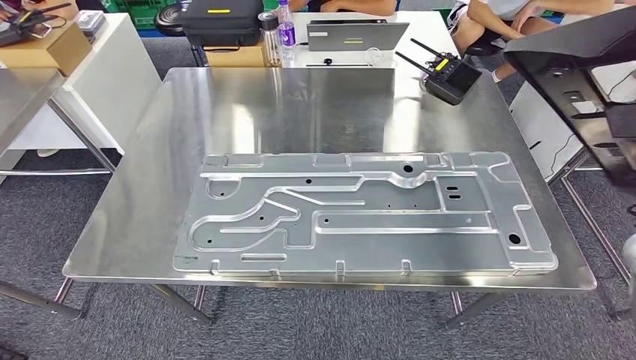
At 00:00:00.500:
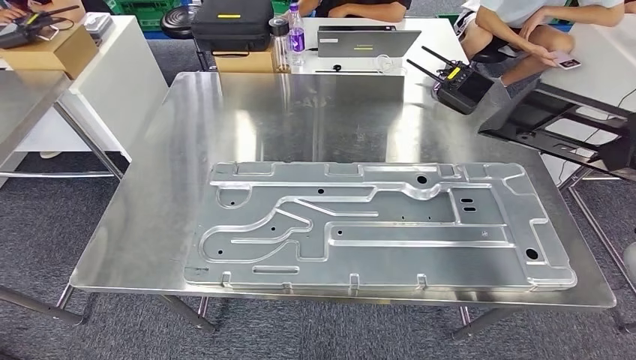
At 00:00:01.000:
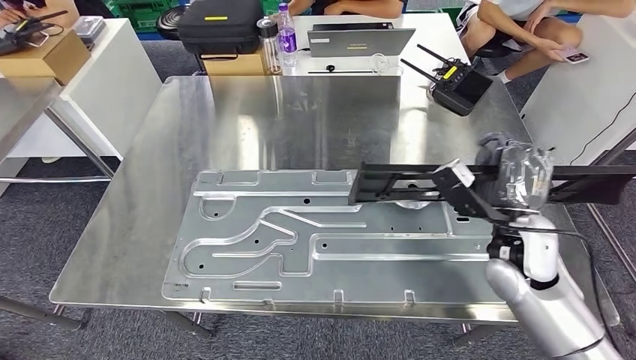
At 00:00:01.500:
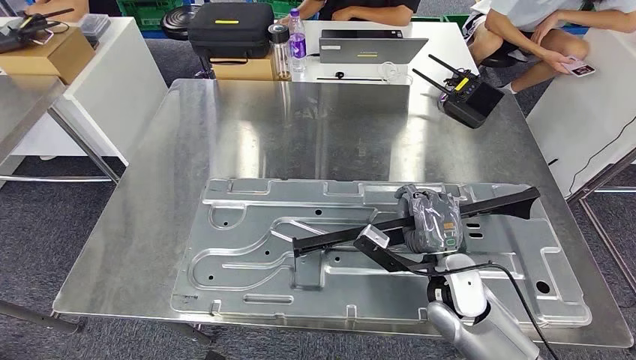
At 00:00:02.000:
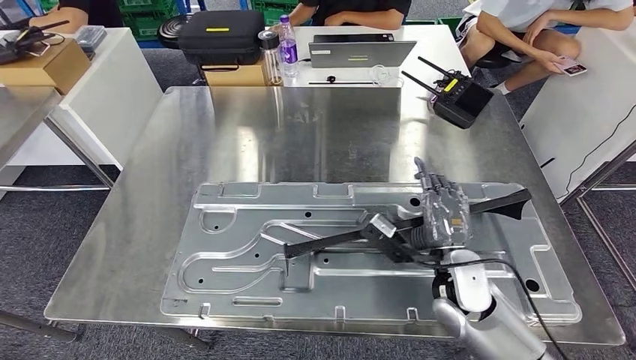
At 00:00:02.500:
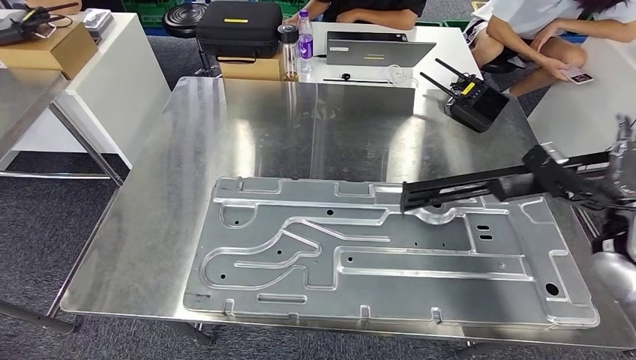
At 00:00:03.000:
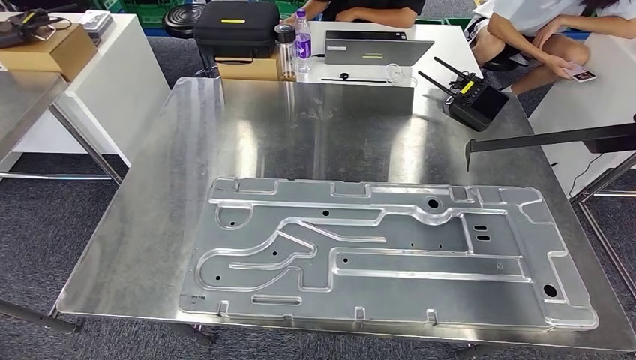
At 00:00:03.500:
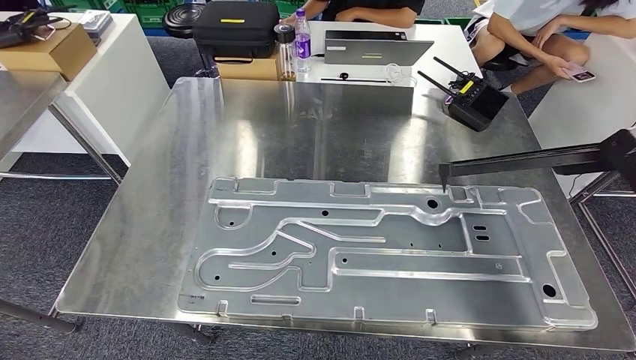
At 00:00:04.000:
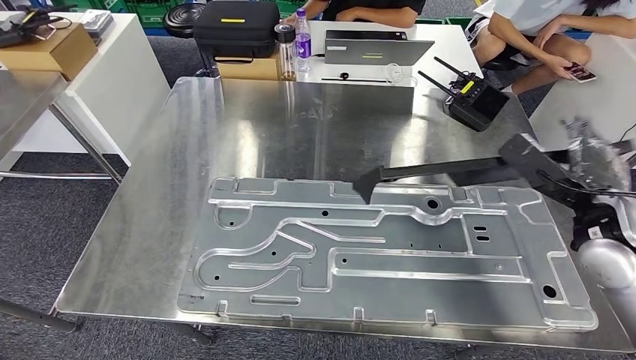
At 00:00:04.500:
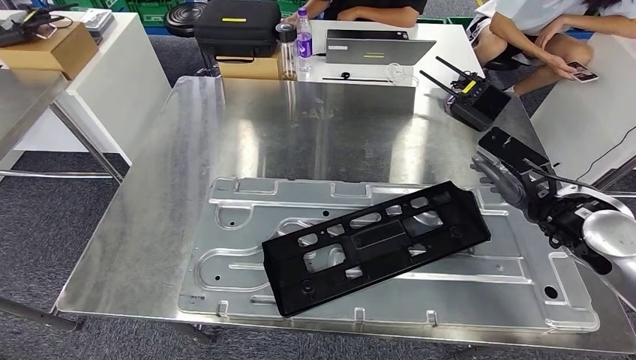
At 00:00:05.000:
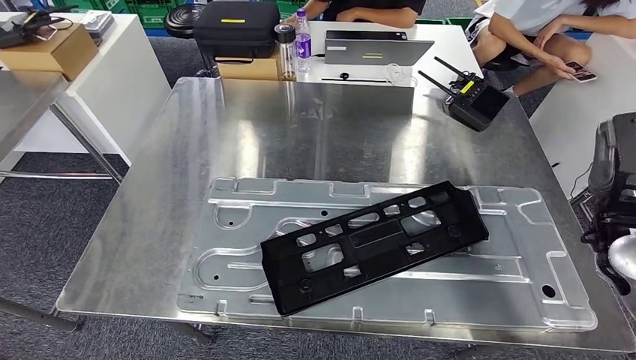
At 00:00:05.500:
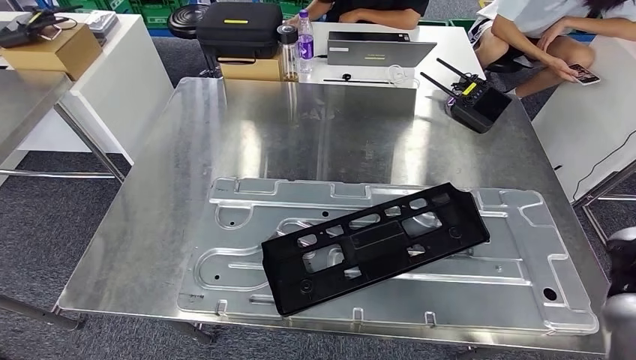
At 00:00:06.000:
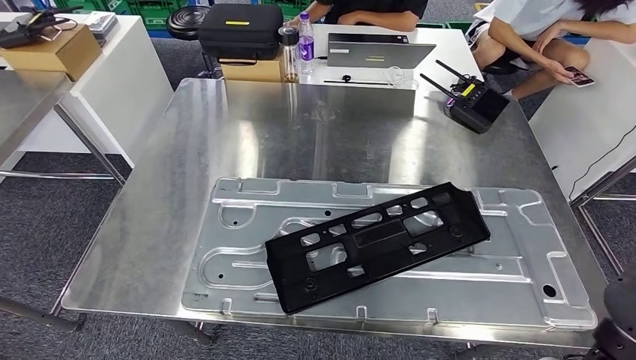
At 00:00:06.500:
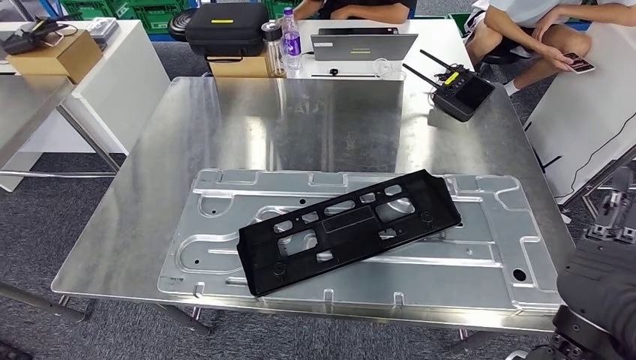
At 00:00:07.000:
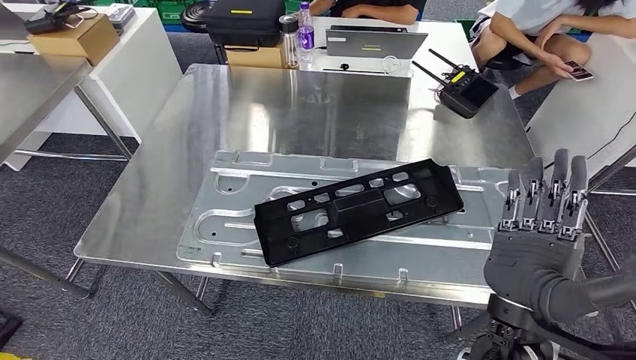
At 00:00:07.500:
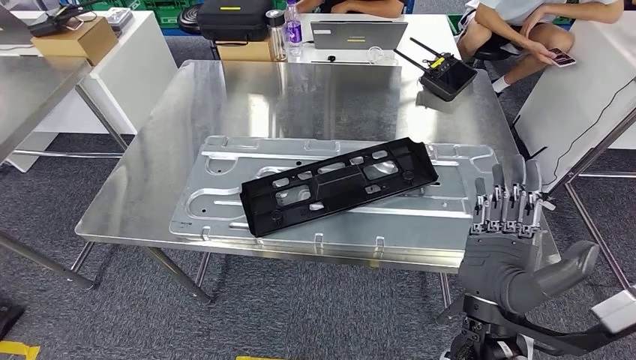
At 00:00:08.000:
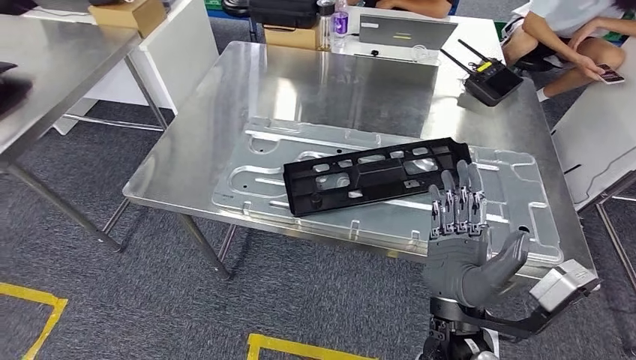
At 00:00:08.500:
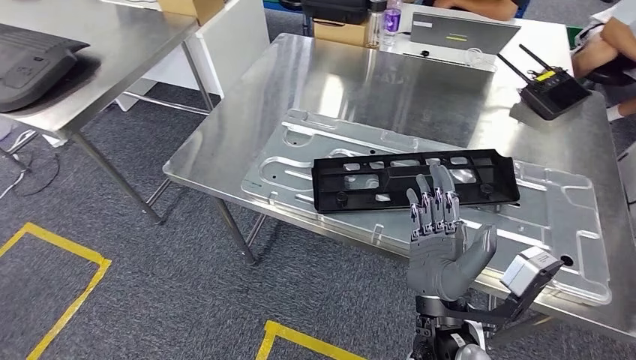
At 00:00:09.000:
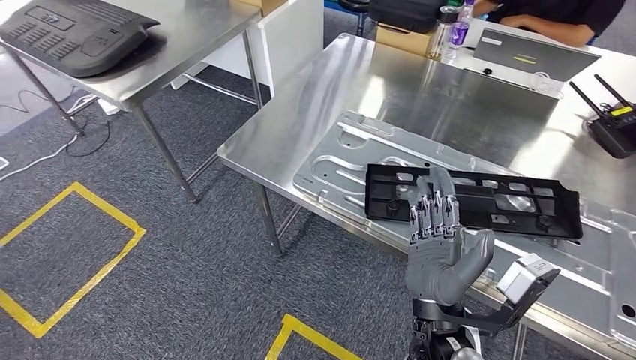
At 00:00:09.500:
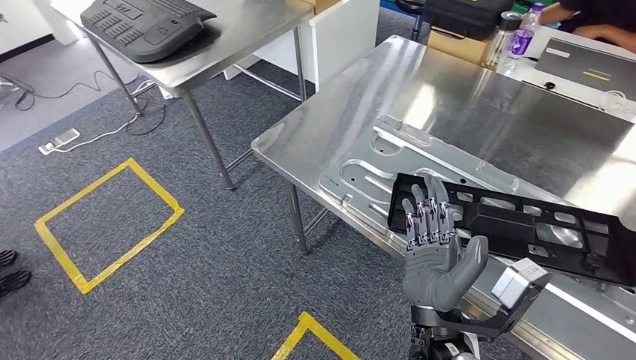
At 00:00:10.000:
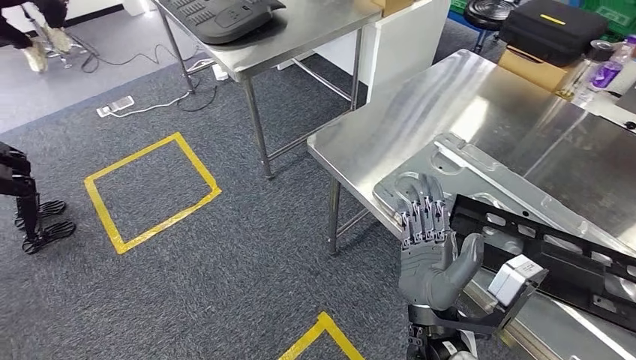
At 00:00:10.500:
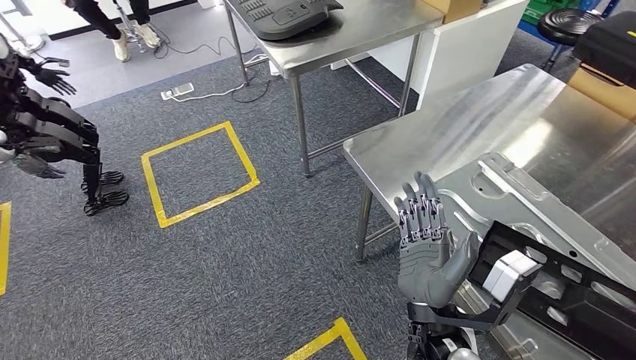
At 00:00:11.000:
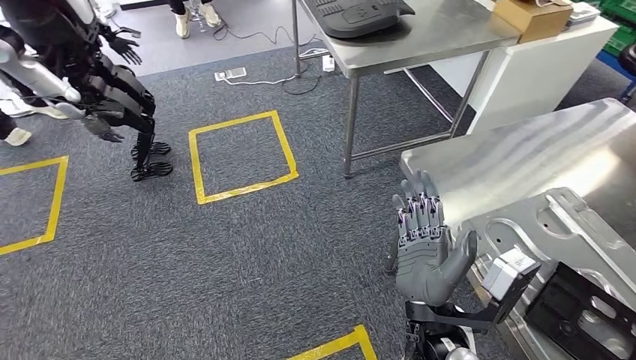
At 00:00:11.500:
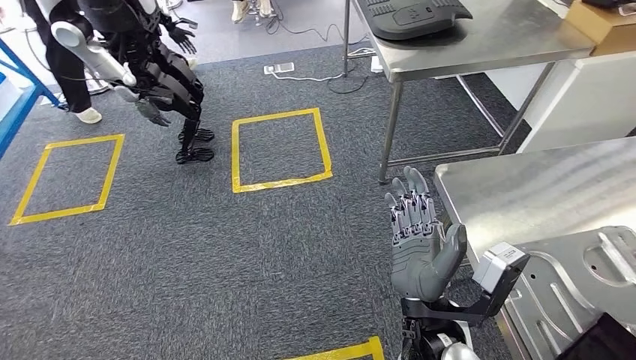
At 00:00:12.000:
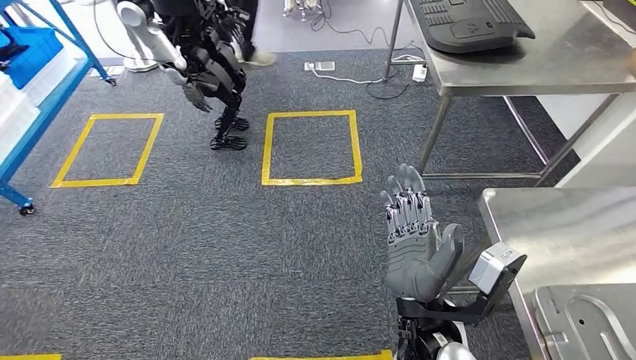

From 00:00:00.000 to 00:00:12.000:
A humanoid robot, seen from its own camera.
Step, from 00:00:00.000 to 00:00:08.000: Insert the large material into the corresponding slot on the workbench.

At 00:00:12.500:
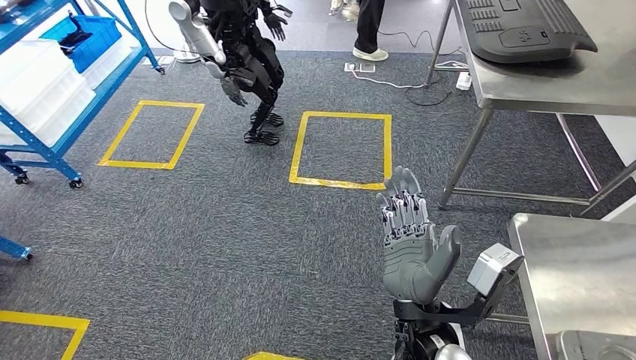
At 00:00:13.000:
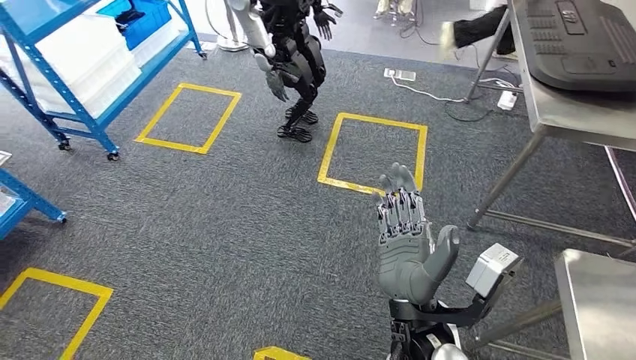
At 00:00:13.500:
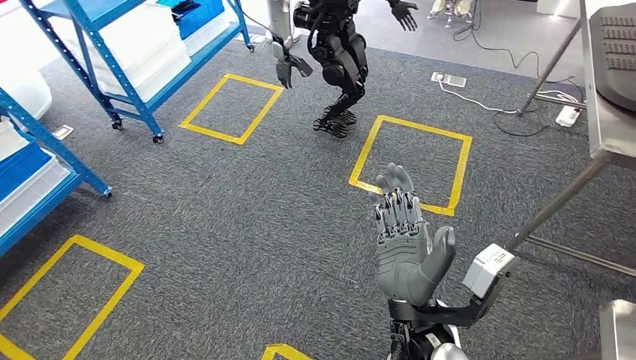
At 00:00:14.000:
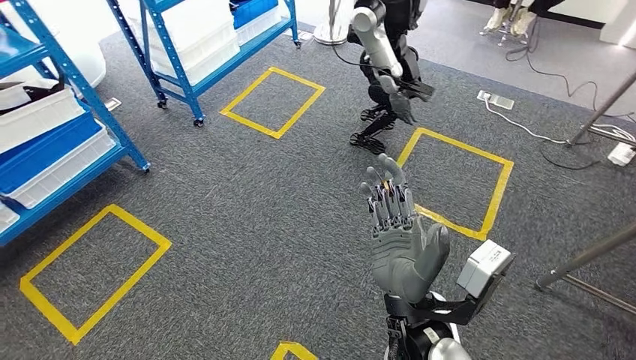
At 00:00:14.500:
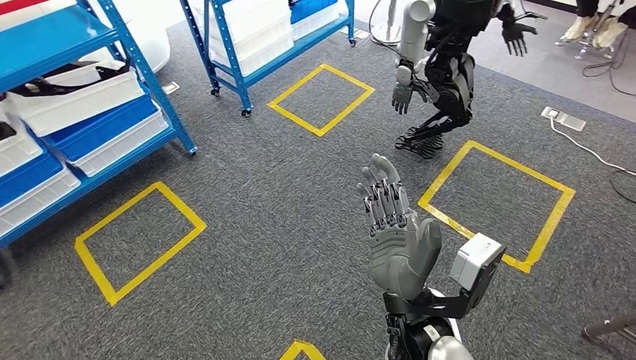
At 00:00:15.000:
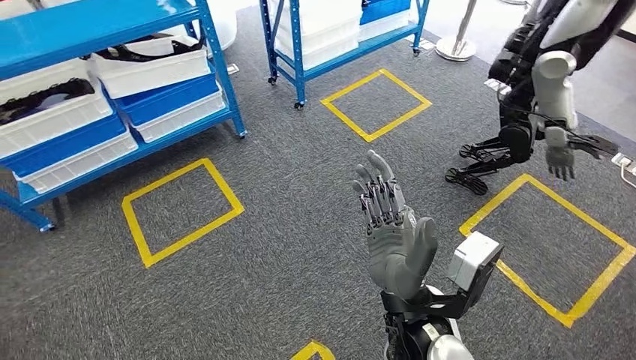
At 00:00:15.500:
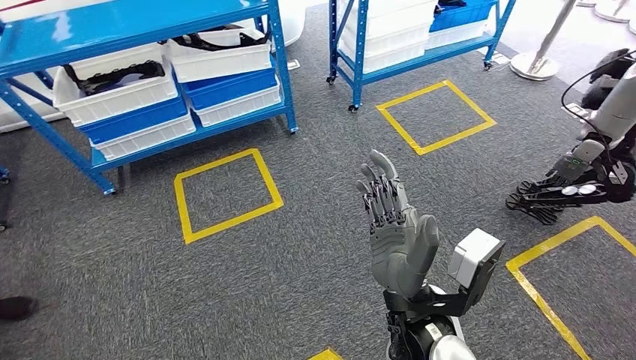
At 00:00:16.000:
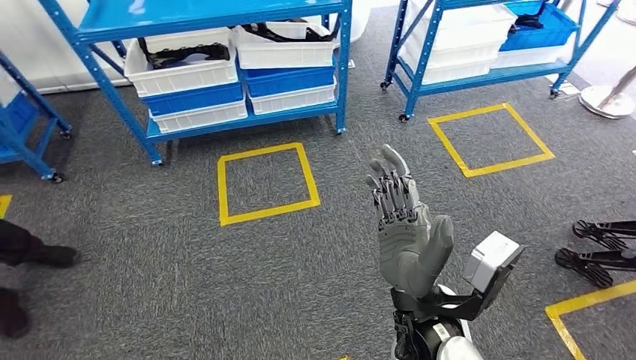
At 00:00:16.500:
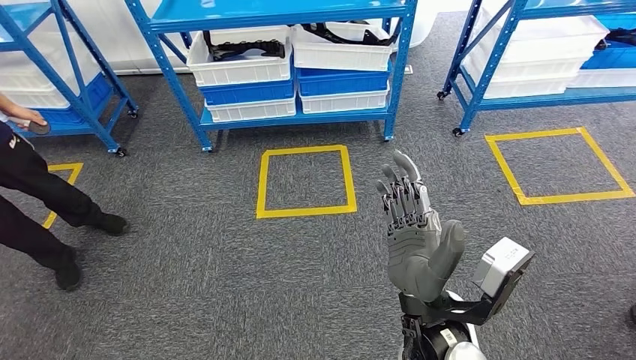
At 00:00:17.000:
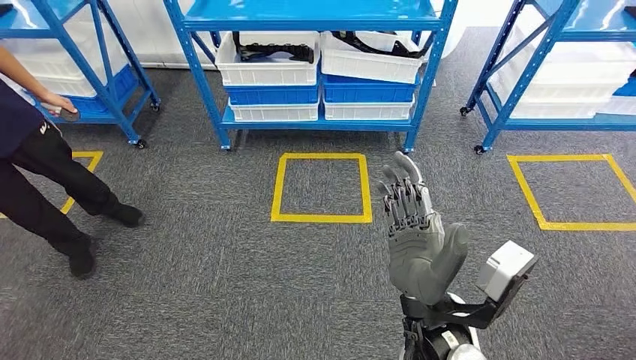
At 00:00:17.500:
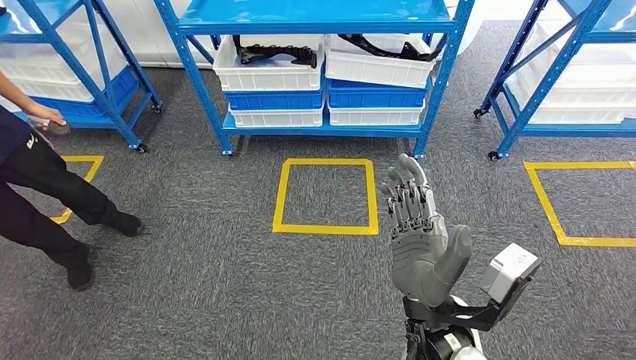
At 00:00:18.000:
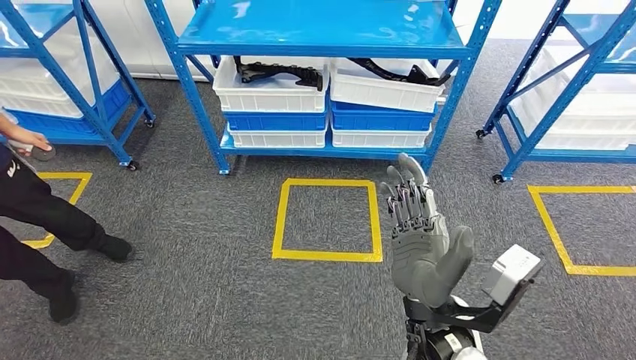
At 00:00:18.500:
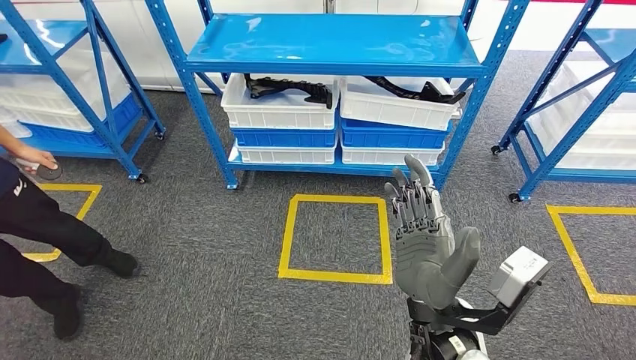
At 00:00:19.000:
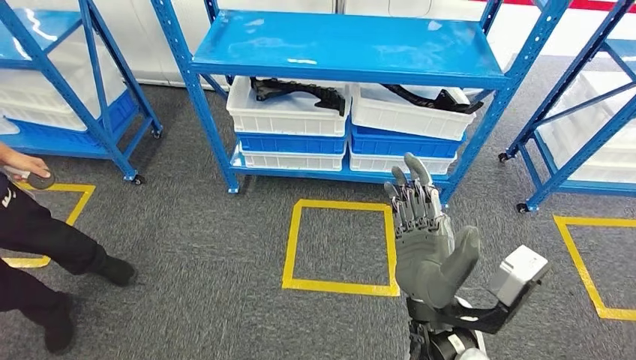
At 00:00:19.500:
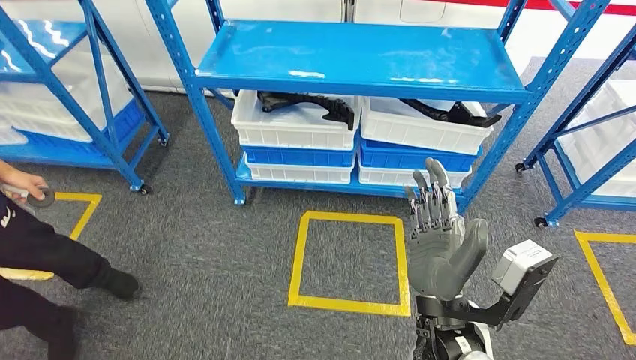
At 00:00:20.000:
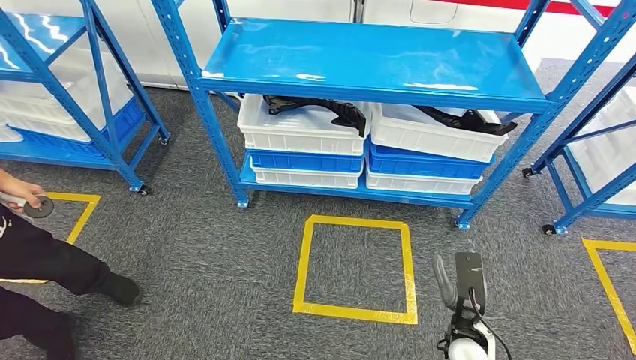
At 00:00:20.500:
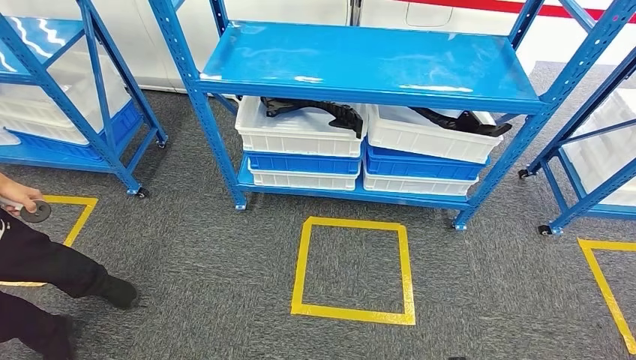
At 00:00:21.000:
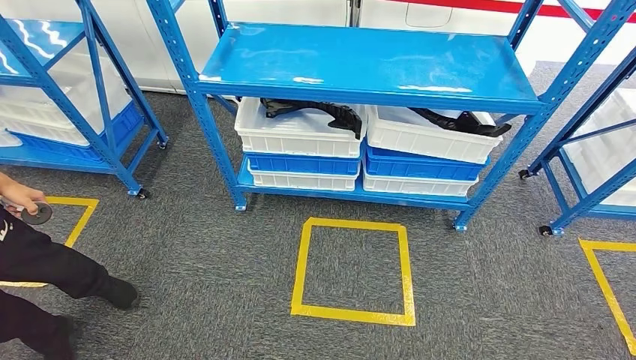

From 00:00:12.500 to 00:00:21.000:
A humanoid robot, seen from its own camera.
Step, from 00:00:12.500 to 00:00:21.000: Move to the initial position of the shelf.
